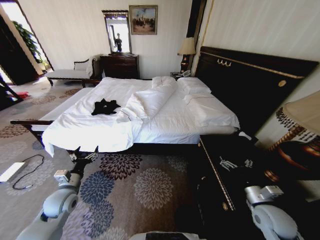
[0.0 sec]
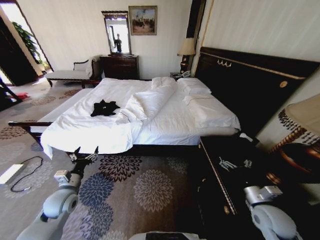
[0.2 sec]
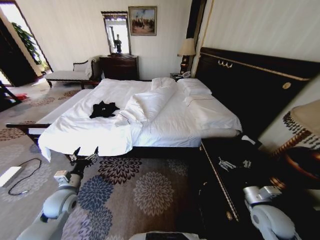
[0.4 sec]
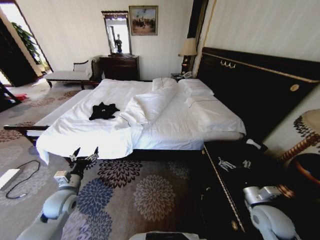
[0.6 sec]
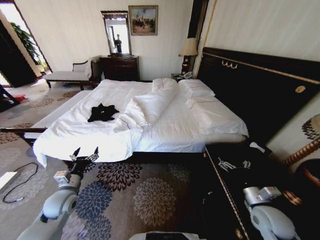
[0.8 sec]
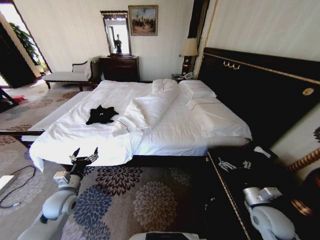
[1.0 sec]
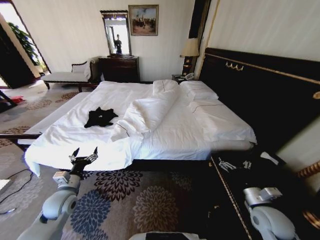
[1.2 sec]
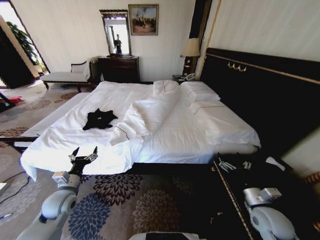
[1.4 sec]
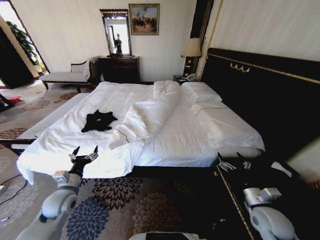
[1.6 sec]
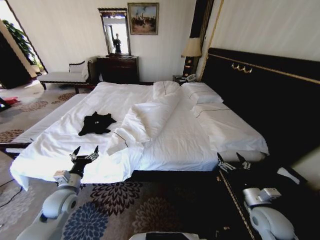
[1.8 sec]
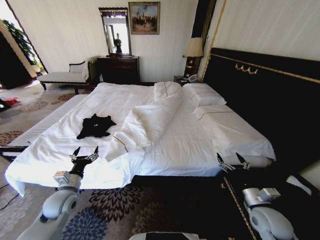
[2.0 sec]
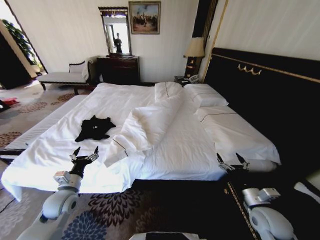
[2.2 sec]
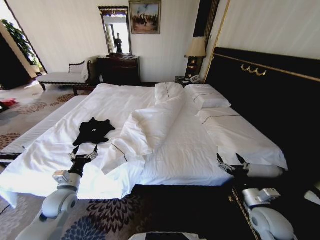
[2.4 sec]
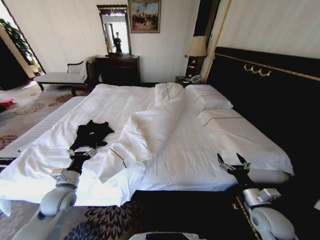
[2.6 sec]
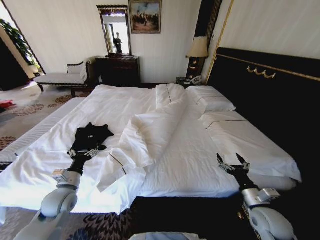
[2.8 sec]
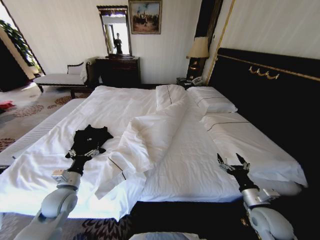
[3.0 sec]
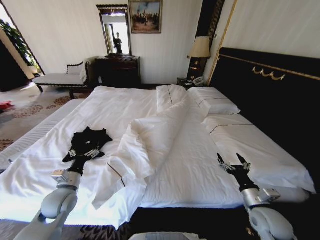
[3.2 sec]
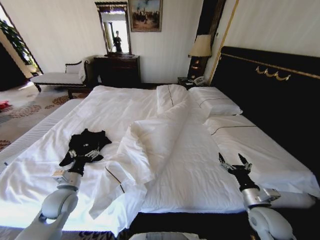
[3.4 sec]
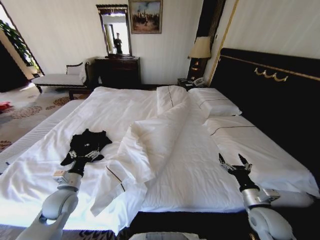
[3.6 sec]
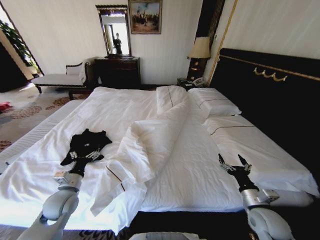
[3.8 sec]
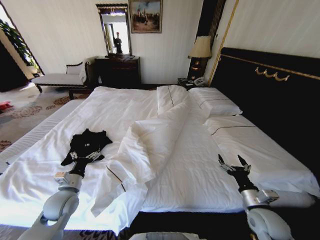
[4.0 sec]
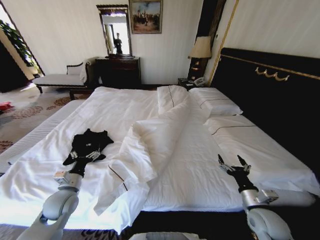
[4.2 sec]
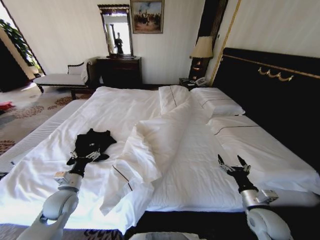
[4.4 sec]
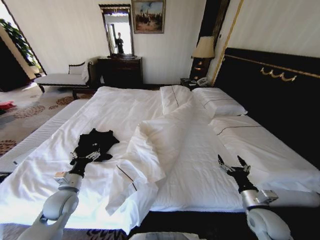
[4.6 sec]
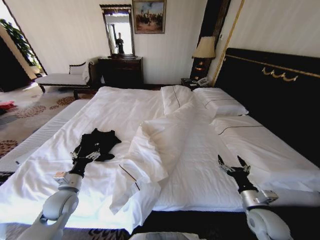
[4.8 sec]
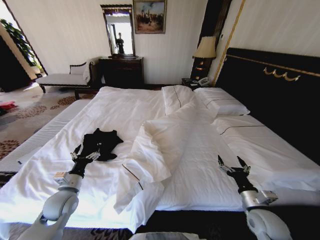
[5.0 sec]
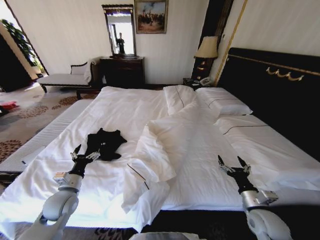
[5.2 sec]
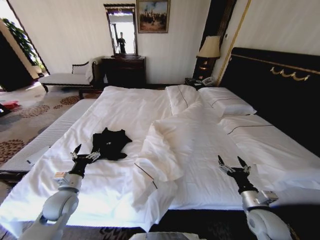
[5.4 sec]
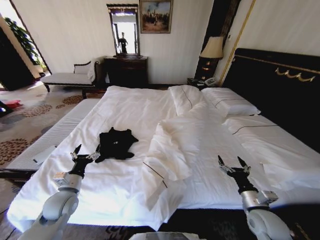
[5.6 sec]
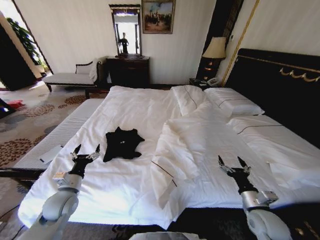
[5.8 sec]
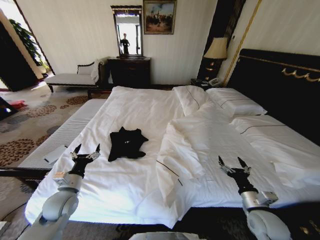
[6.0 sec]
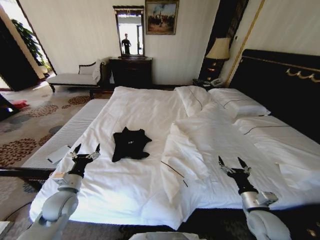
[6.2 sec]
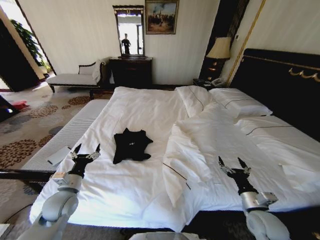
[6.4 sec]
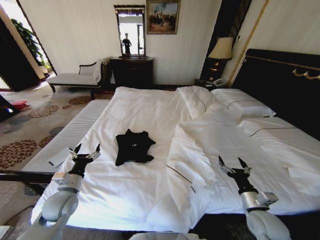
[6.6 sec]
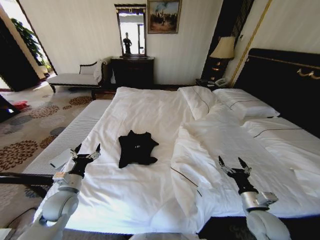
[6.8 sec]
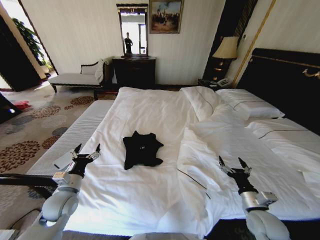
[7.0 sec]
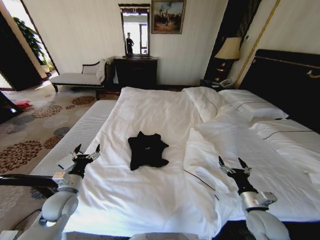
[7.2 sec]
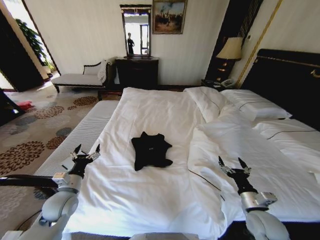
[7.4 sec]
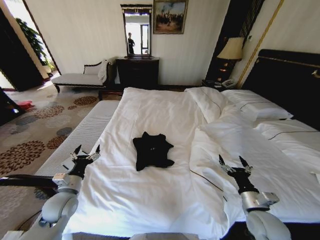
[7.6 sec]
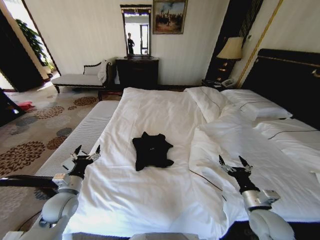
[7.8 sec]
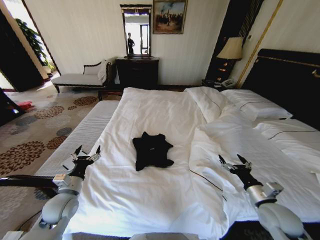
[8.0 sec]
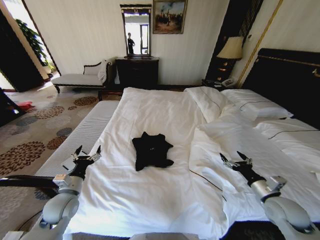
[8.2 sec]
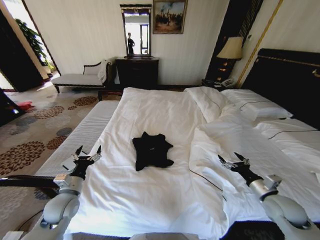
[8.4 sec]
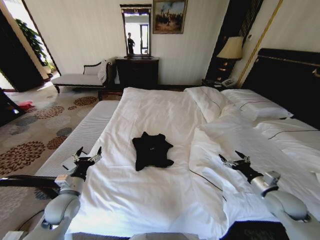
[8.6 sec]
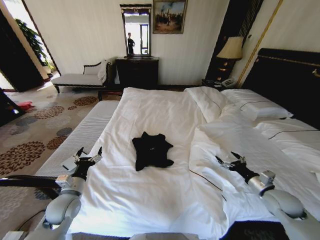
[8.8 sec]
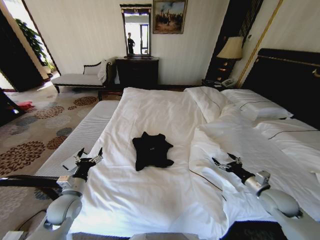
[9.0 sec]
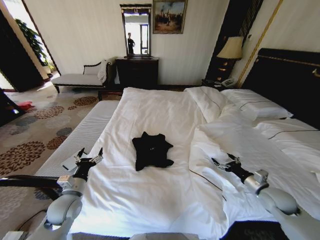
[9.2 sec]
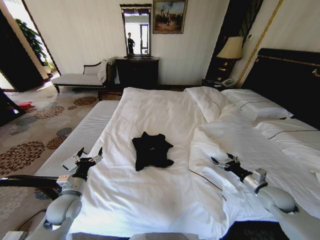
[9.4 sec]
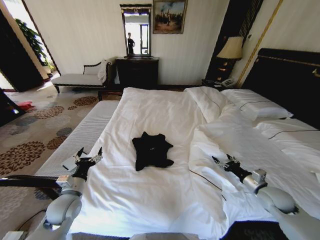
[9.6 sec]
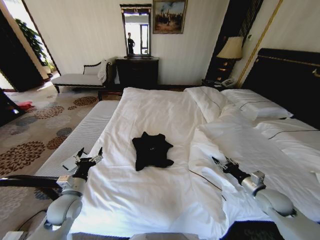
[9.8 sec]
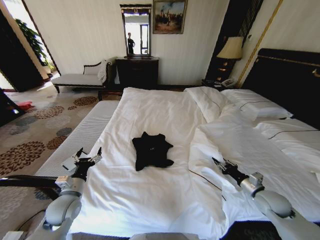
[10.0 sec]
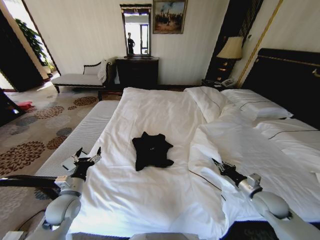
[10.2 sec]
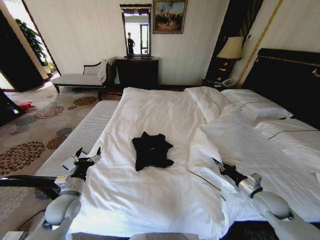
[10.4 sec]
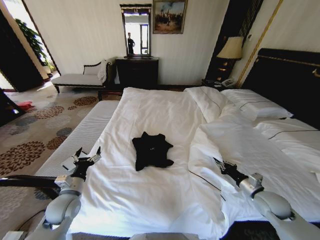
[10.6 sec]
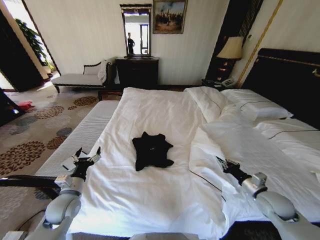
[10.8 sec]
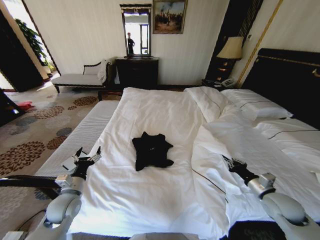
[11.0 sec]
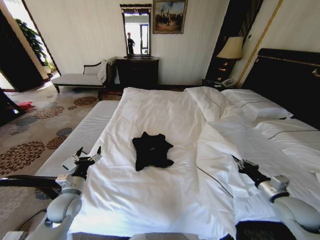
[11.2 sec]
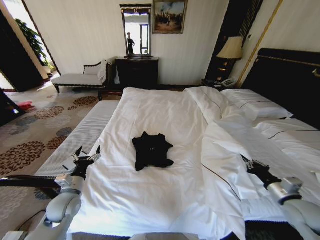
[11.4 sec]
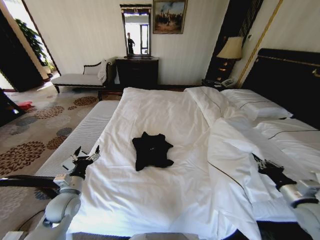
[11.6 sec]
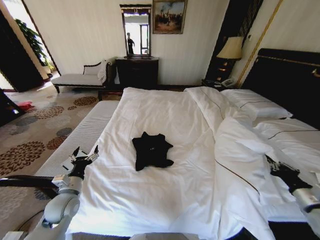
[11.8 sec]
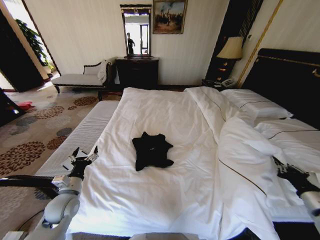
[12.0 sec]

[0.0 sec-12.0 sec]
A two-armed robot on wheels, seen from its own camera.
Task of the whole recording: Fold the clothes on the bed.
7.6 sec to 9.0 sec: The right gripper goes roughly 10 cm to the right and forward.
9.0 sec to 10.4 sec: The right gripper closes its fingers.
10.4 sec to 12.0 sec: The right gripper is displaced backward, to the right and upward by roughly 15 cm.

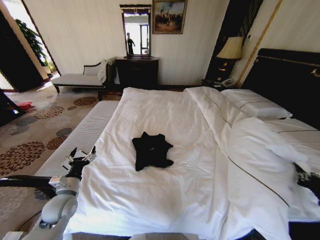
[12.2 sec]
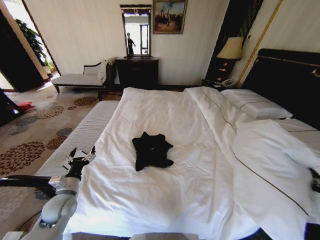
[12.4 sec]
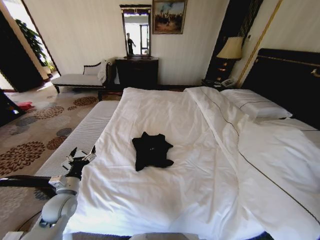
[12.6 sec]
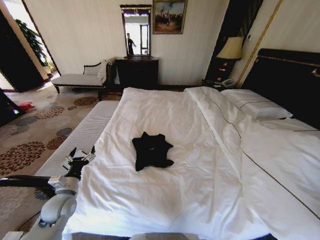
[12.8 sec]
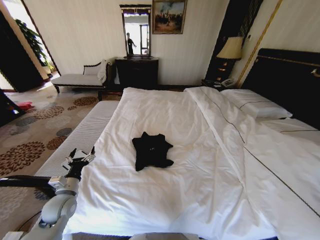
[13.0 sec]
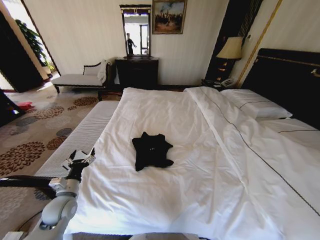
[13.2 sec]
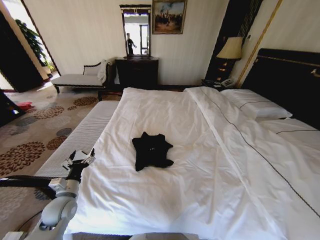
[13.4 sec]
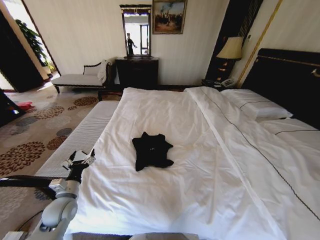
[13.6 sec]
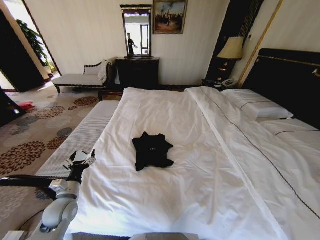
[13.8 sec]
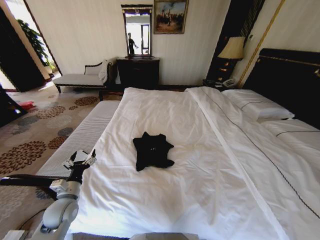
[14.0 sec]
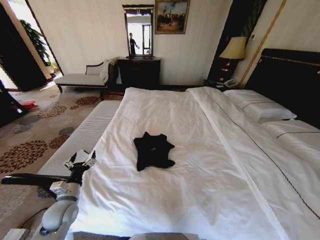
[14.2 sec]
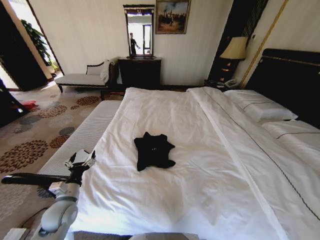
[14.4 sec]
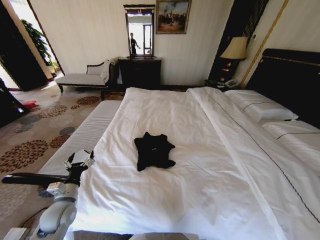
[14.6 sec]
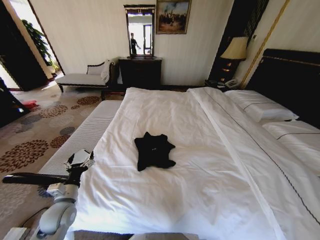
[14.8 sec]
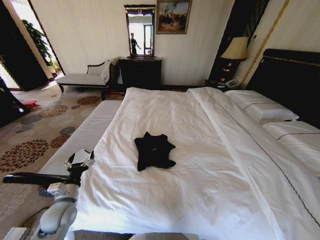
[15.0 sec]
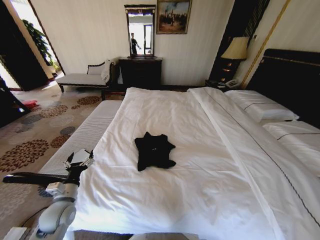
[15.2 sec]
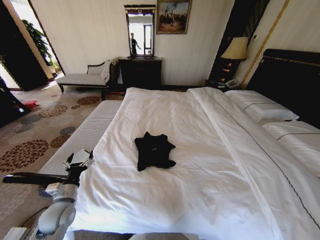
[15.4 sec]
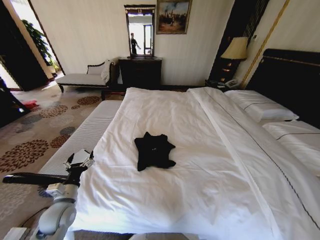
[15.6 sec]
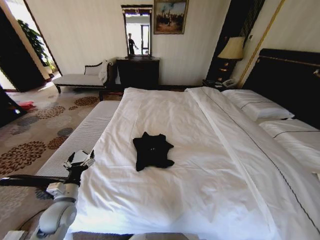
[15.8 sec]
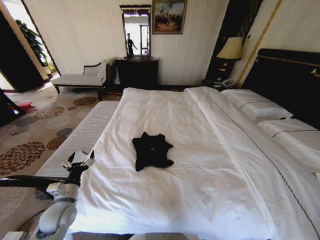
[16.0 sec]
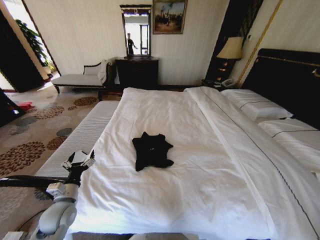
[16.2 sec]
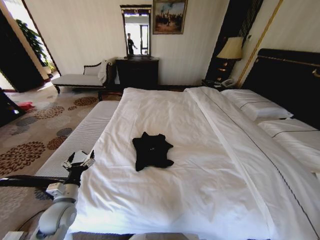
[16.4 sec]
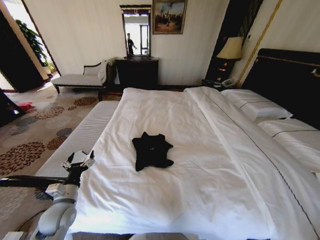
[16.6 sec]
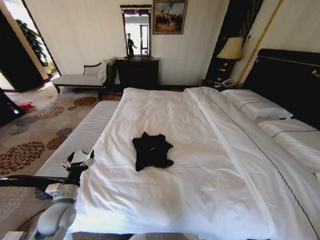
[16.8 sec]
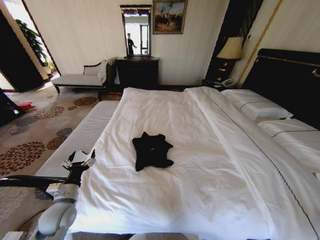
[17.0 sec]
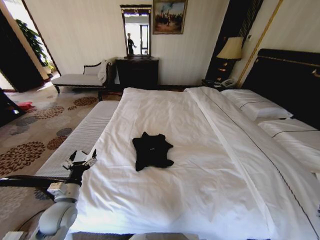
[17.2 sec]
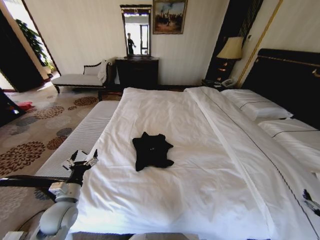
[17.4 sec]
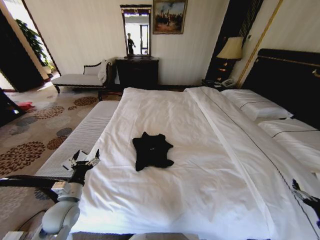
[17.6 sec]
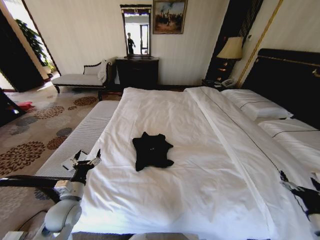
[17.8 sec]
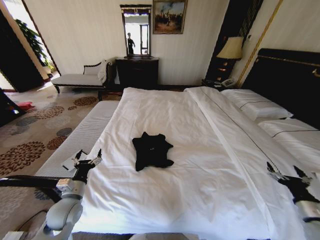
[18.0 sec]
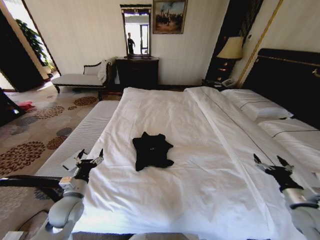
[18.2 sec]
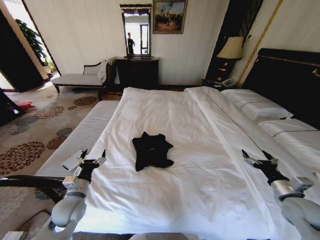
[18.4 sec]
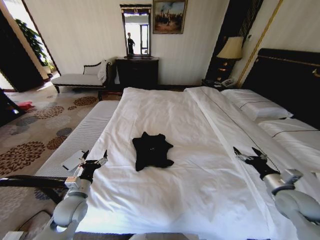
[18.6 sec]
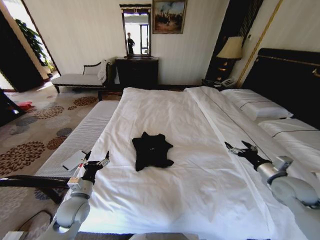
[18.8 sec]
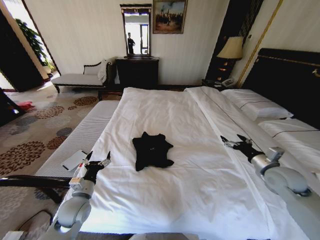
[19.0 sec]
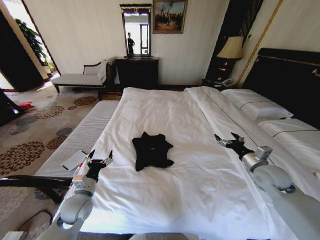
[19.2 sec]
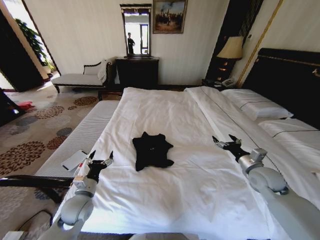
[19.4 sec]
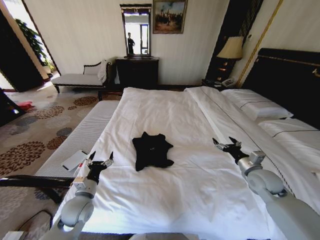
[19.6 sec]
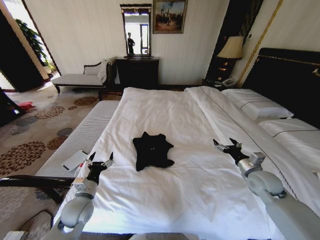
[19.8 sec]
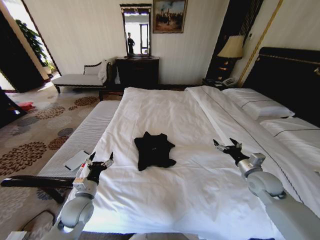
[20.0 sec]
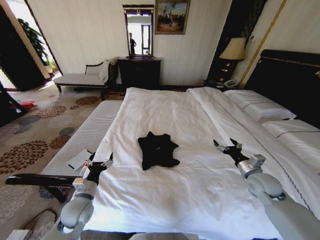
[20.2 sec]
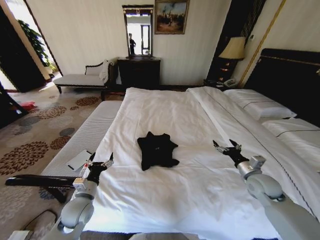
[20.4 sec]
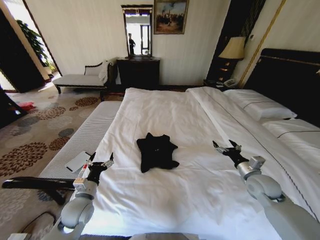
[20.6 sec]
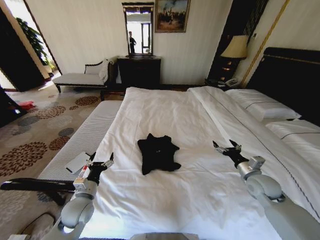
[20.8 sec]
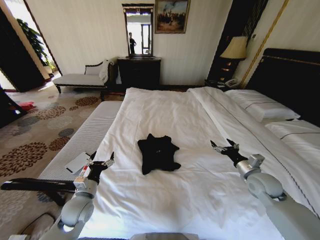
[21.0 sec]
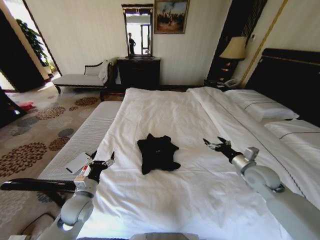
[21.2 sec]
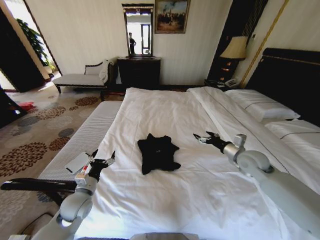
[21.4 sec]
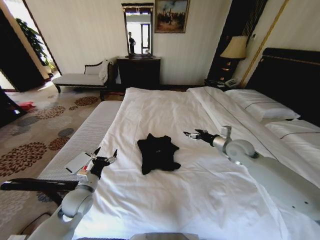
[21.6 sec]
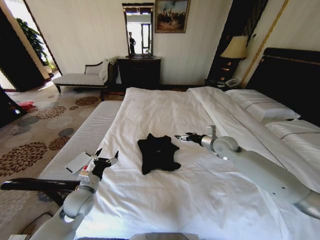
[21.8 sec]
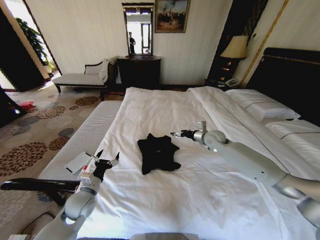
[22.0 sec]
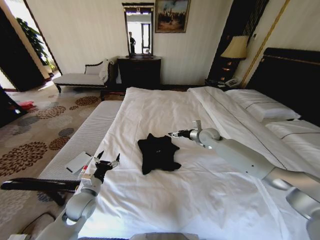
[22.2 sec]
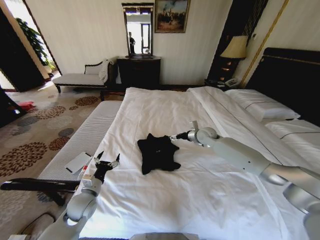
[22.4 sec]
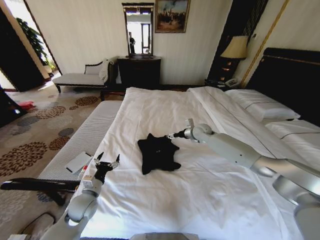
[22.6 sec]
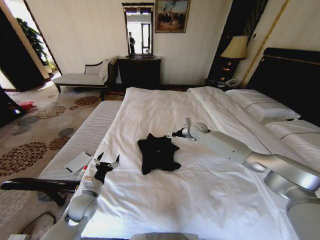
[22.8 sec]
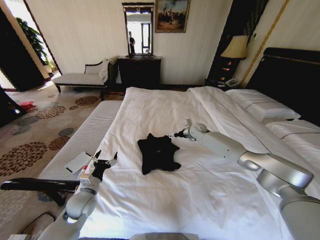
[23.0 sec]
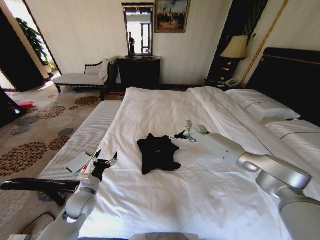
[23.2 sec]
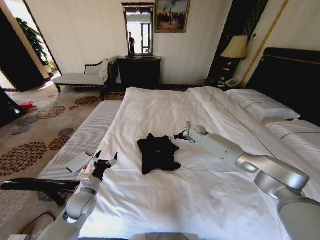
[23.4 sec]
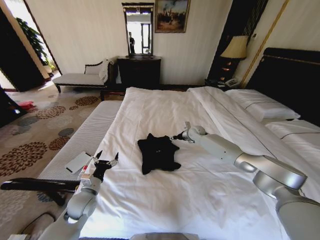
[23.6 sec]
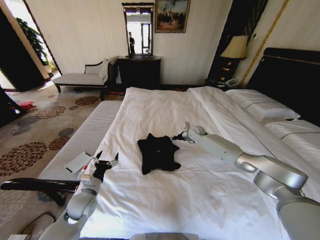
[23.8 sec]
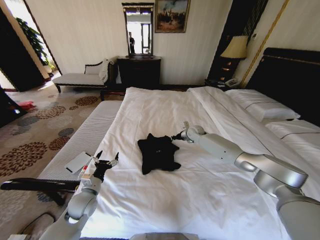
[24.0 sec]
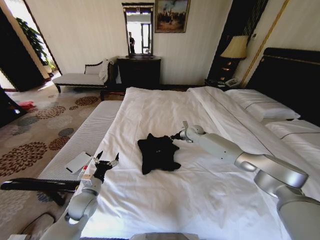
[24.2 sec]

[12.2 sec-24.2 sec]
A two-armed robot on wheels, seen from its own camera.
Task of the whole recording: Fold the clothes on the bed.
12.2 sec to 13.8 sec: The right gripper heads backward, to the right and downward, covering approximately 25 cm.
13.8 sec to 15.2 sec: The right gripper goes roughly 10 cm downward.
15.2 sec to 16.6 sec: The right gripper heads to the left, covering about 5 cm, and opens.
16.6 sec to 18.2 sec: The right gripper is displaced forward, upward and to the left by roughly 30 cm.
18.2 sec to 19.8 sec: The right gripper goes about 15 cm forward and to the left.
19.8 sec to 21.2 sec: There are only small adjustments of the grippers.
21.2 sec to 22.6 sec: The right gripper heads forward and to the left, covering about 30 cm.
22.6 sec to 24.2 sec: The right gripper moves approximately 5 cm, and closes its fingers.
